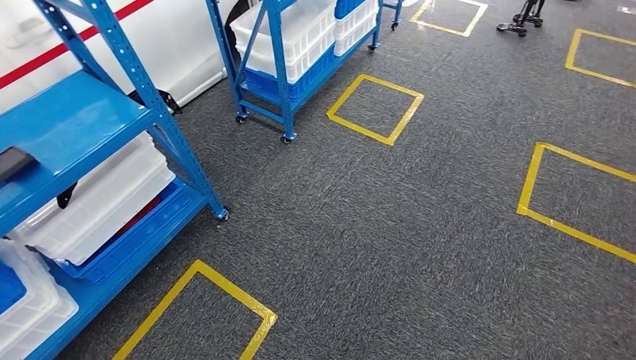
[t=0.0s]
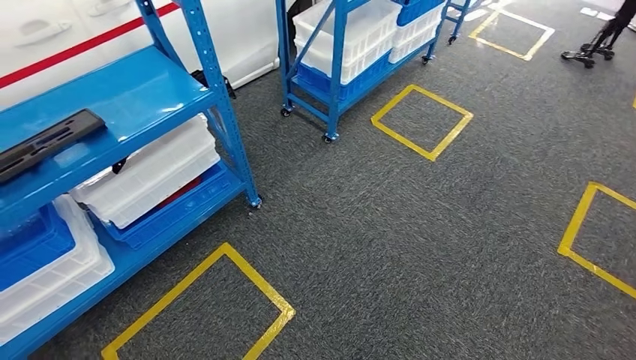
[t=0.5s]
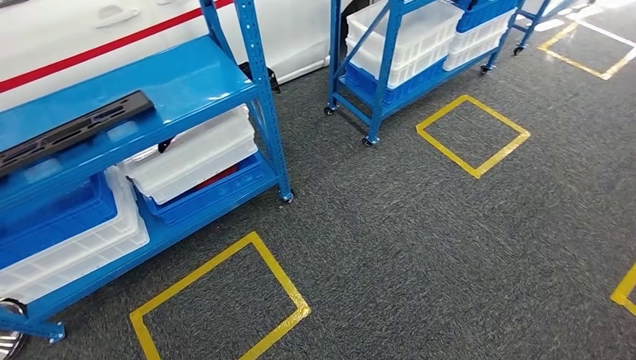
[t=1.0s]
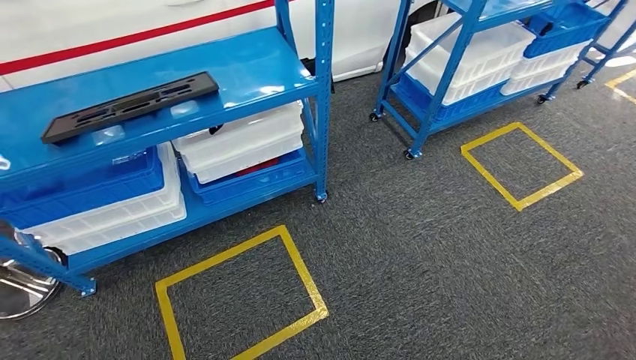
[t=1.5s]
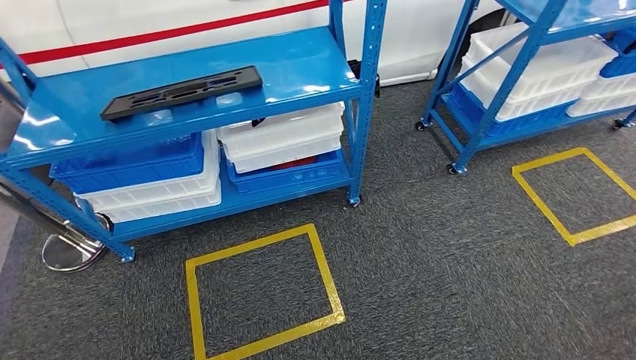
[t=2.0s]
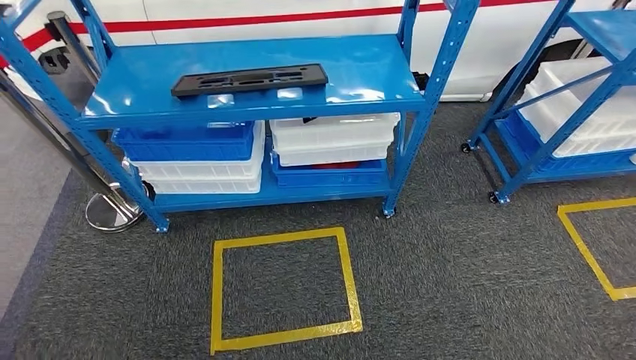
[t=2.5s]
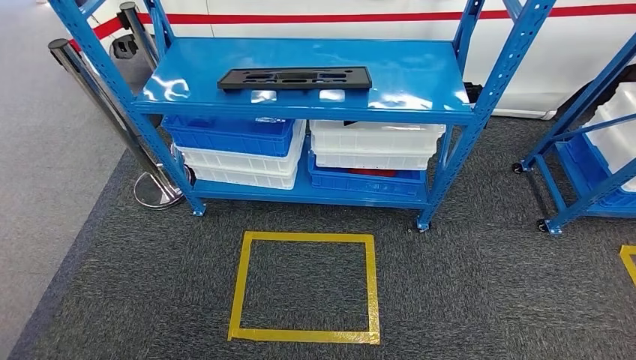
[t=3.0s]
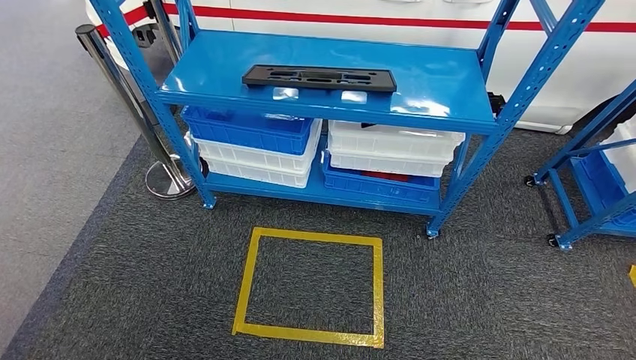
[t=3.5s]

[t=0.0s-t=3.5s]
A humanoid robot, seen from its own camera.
Step, t=0.0s to t=3.5s: Return to the initial position at the shelf.

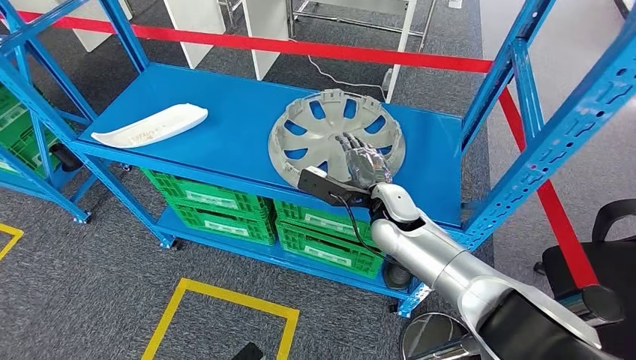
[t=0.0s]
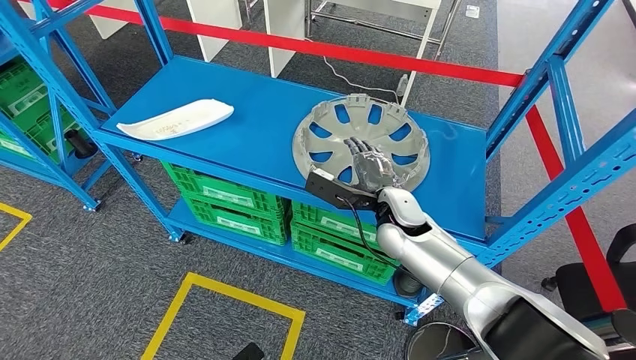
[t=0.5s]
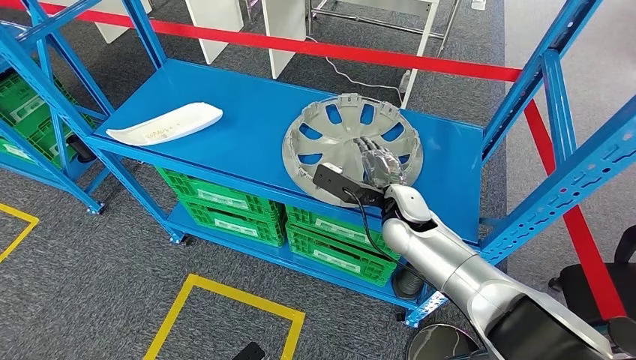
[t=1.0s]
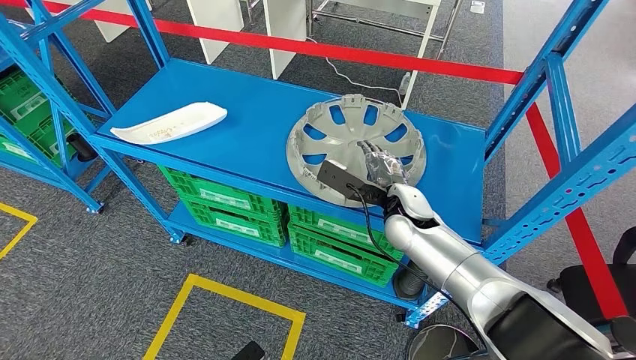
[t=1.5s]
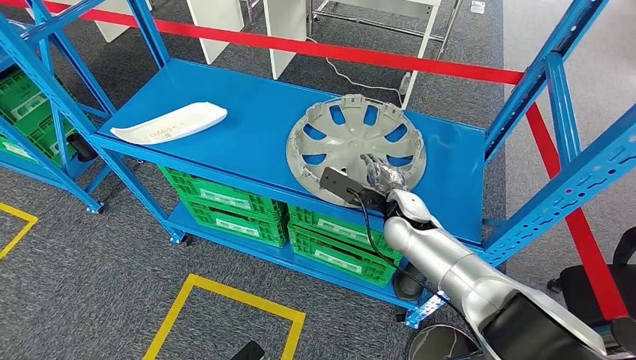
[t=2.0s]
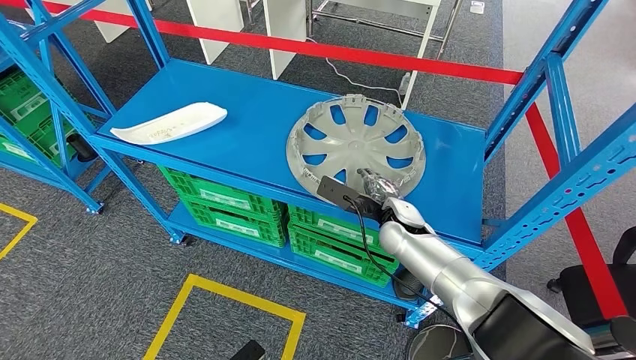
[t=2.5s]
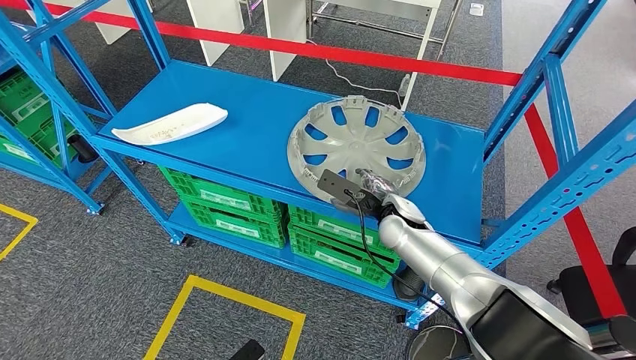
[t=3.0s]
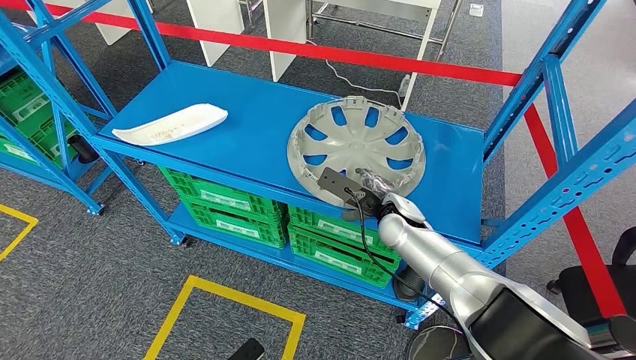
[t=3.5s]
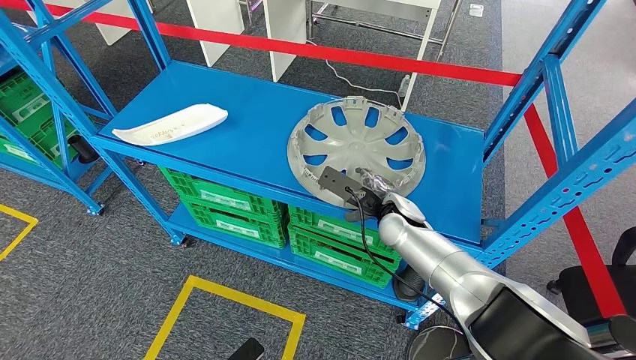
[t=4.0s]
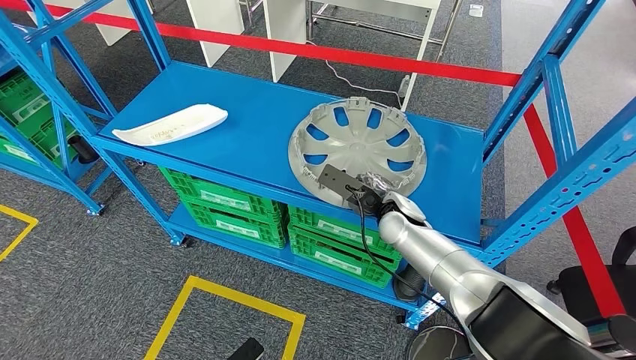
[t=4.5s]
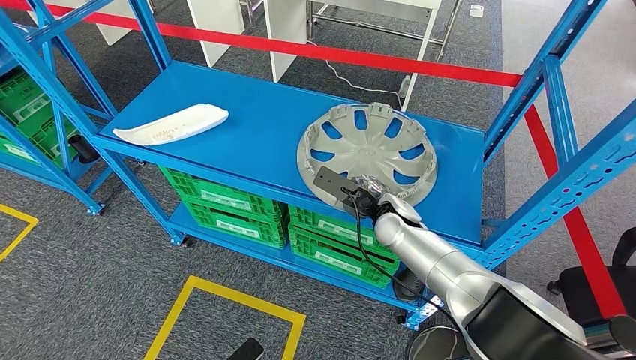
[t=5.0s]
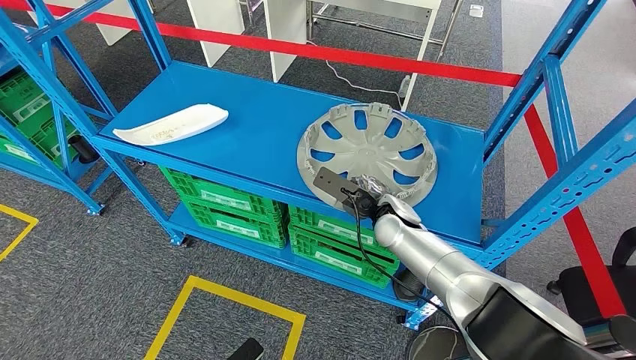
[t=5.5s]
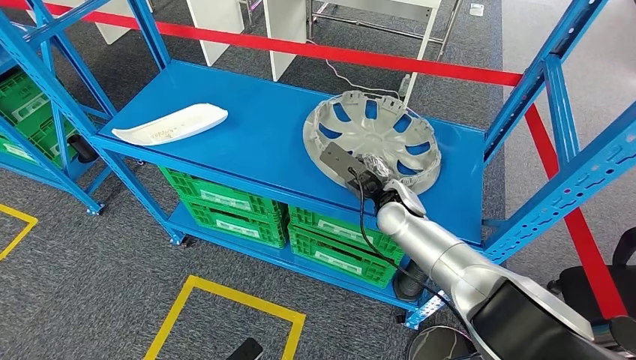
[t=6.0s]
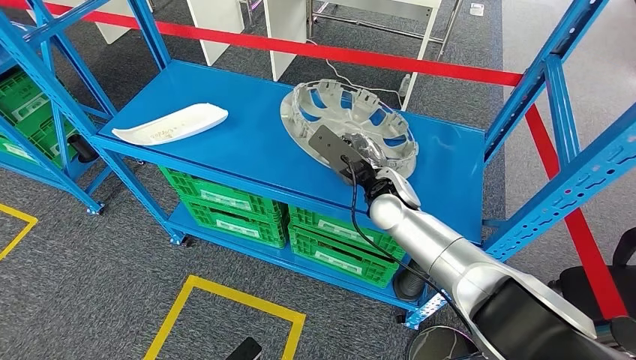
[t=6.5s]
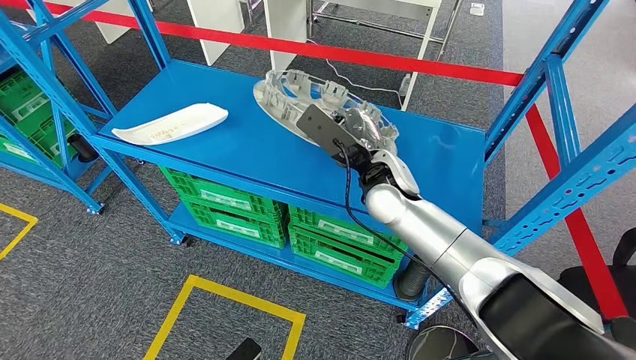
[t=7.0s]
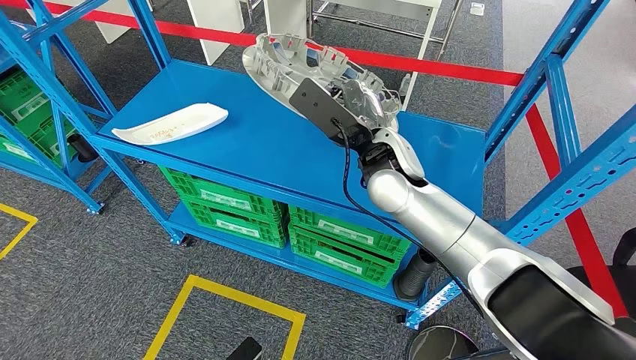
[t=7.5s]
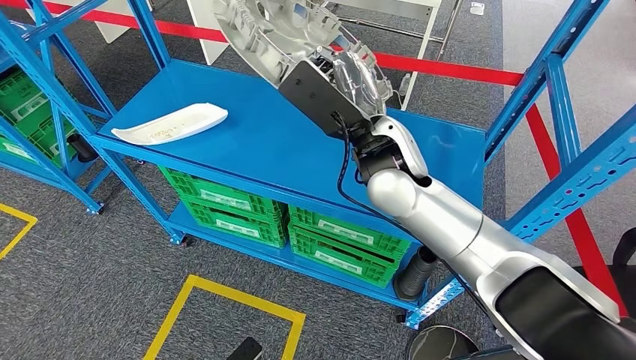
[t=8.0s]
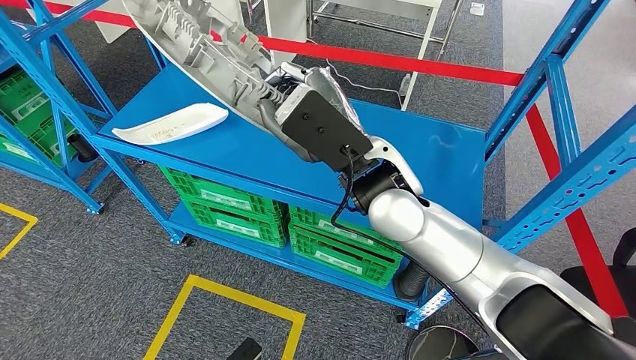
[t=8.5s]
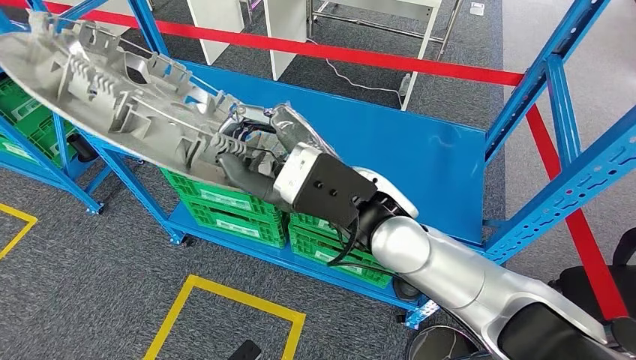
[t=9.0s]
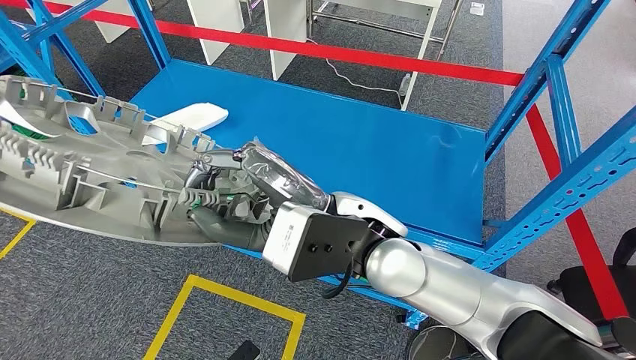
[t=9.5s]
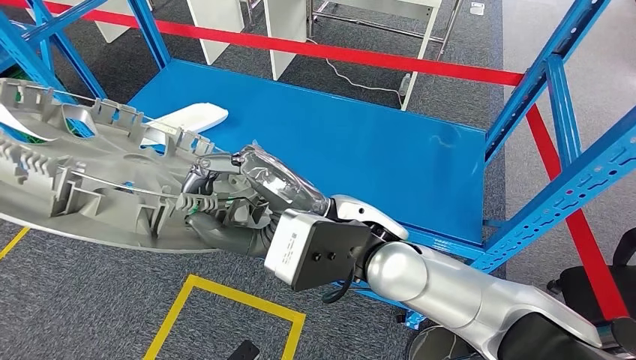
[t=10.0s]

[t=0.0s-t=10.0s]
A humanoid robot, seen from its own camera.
Step, t=0.0s to t=7.5s: Pick up the large material from the shelf.
Step, t=8.0s to t=10.0s: Move the large material to the workbench.
t=2.0s to t=6.0s: The hands make only small movements.
t=6.0s to t=8.0s: The right hand travels upward by about 15 cm.

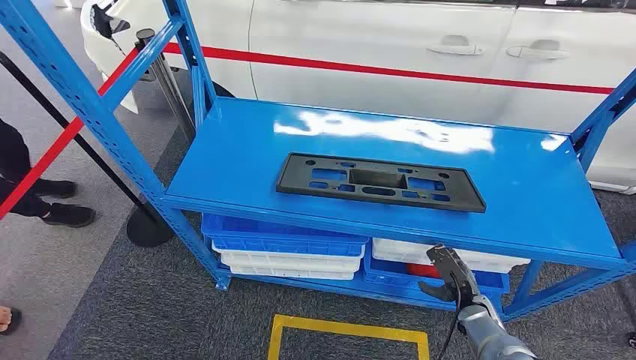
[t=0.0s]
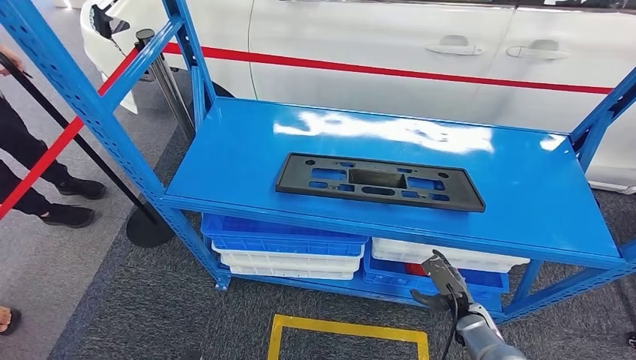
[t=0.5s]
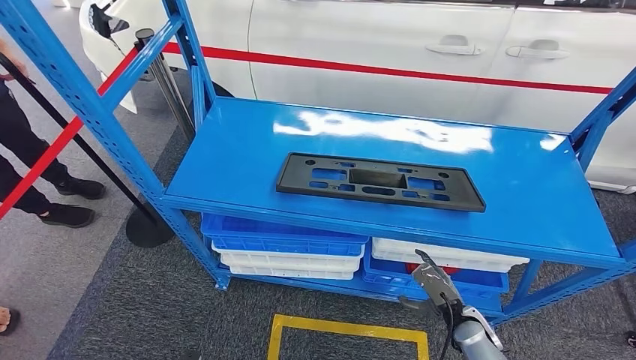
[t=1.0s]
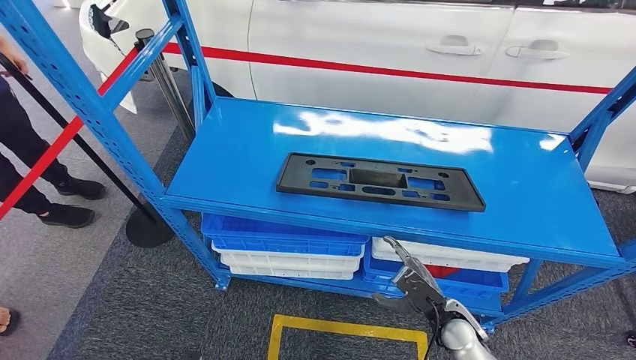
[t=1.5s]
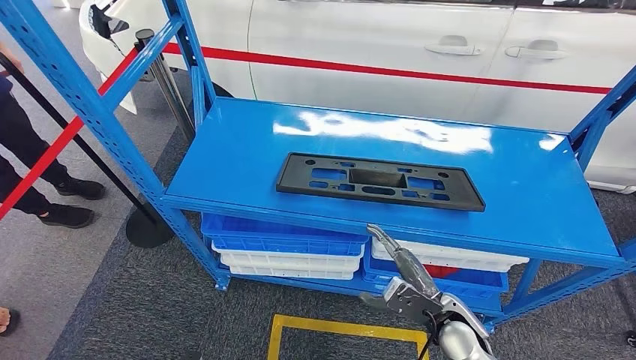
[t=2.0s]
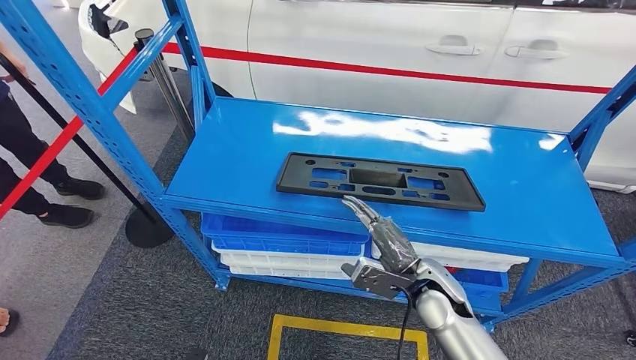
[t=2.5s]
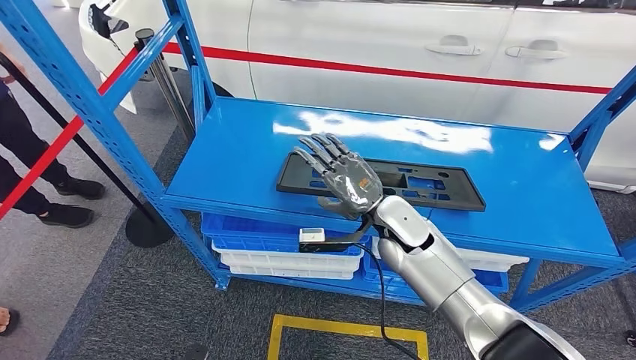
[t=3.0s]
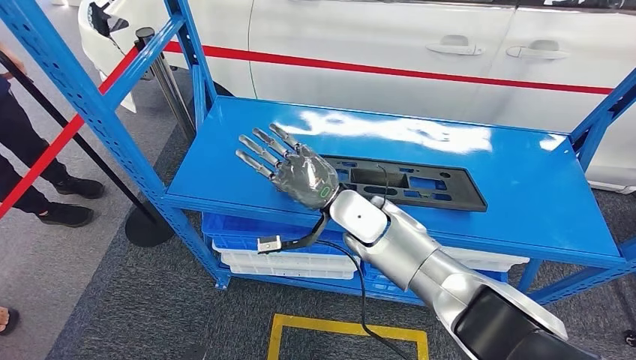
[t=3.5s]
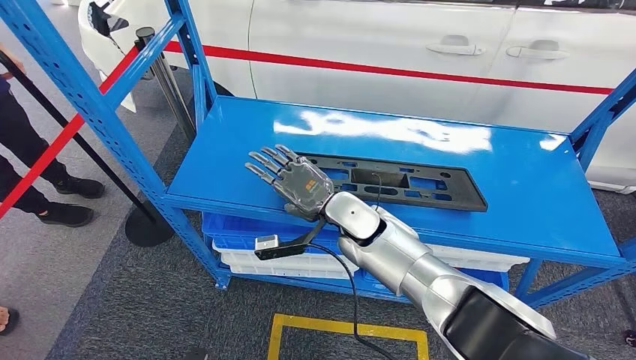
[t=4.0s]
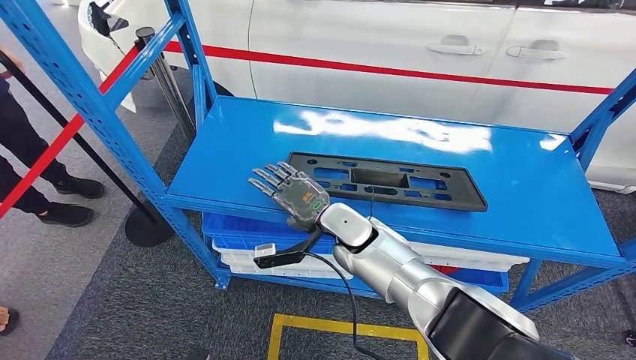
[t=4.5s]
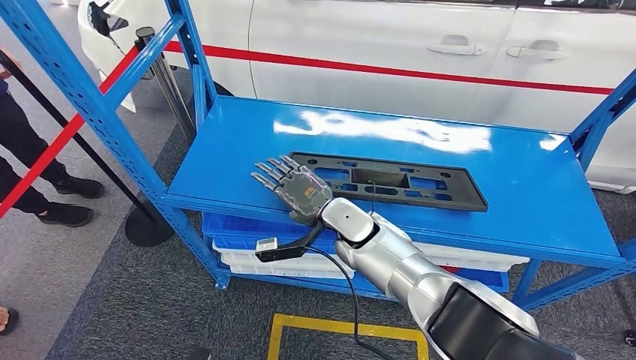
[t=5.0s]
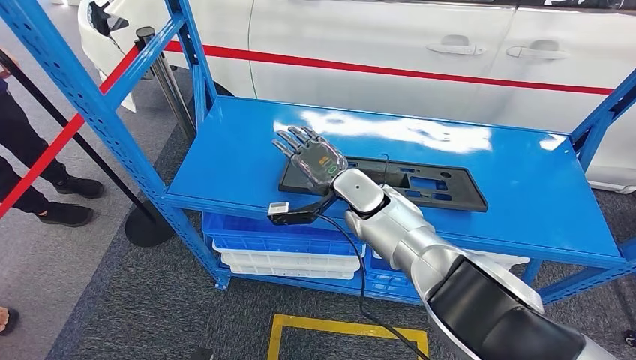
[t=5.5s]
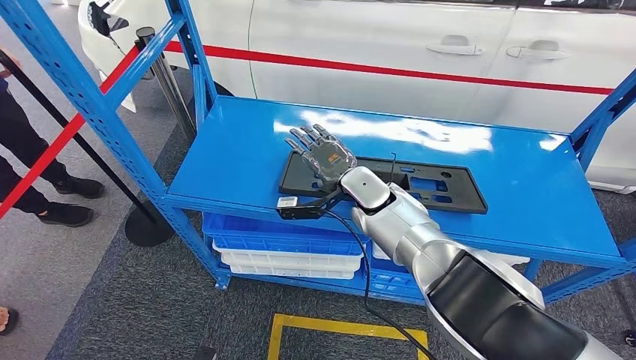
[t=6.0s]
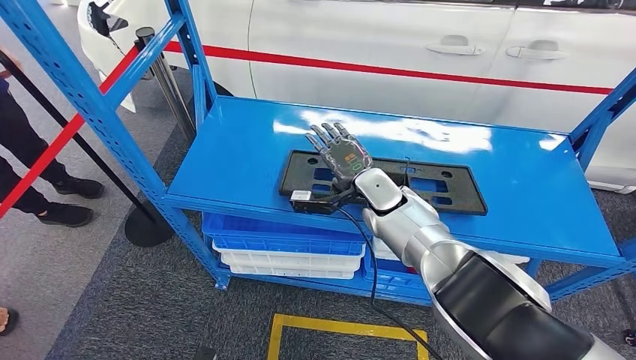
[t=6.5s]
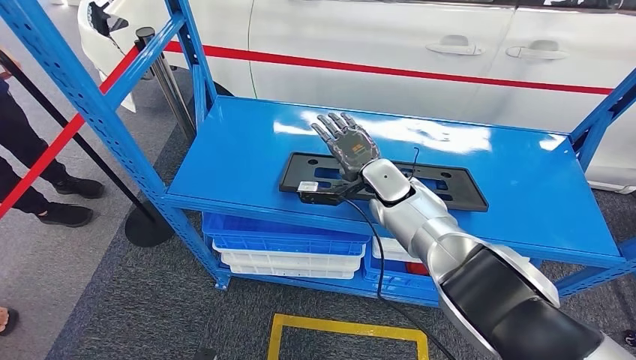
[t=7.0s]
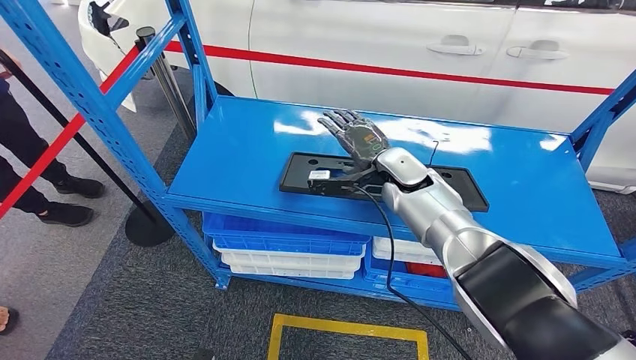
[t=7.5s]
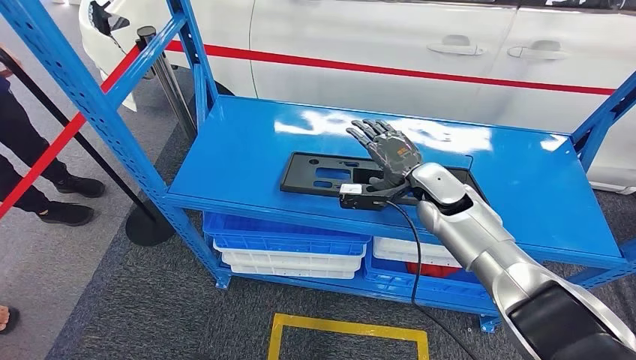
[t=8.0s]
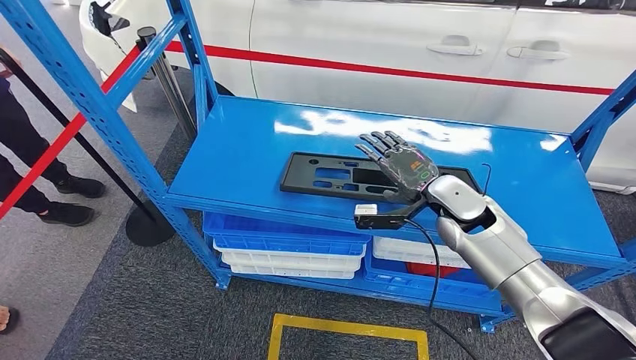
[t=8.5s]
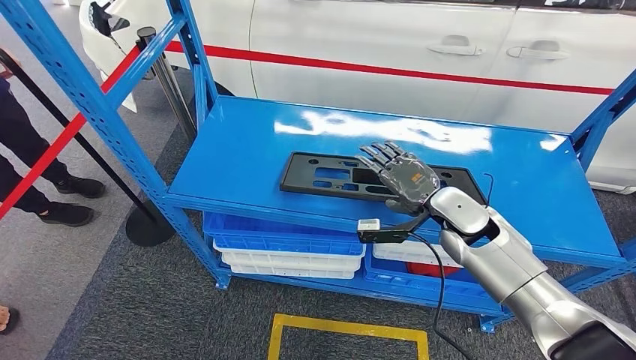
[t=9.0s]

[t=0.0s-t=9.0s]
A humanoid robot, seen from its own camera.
t=2.0s to t=4.5s: The right hand shifts approximately 25 cm to the left, forward and upward.
t=4.5s to t=7.0s: The right hand heads to the right and forward, covering approximately 10 cm.
t=7.0s to t=9.0s: The right hand moves to the right and backward, about 15 cm.
